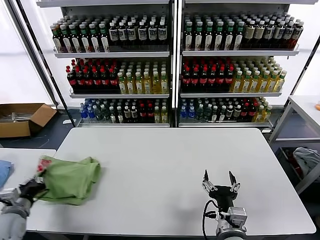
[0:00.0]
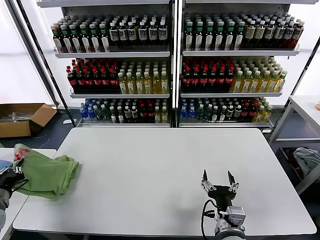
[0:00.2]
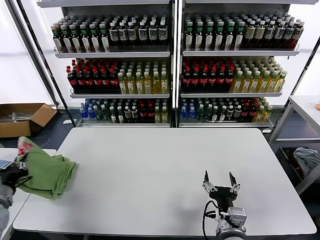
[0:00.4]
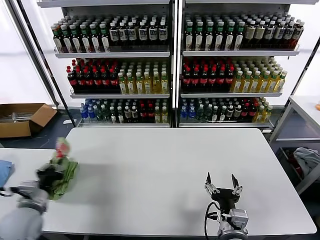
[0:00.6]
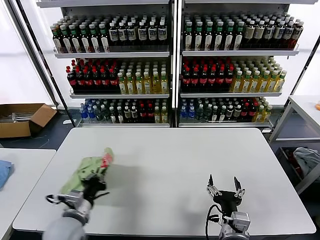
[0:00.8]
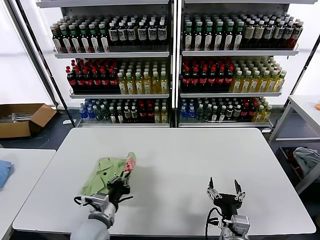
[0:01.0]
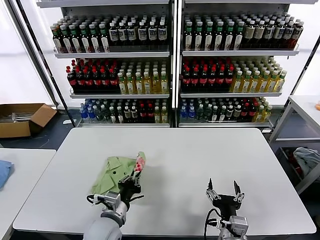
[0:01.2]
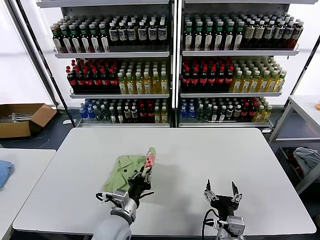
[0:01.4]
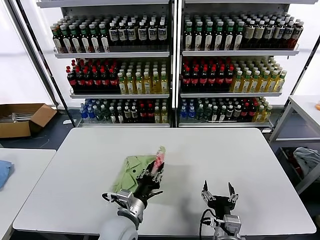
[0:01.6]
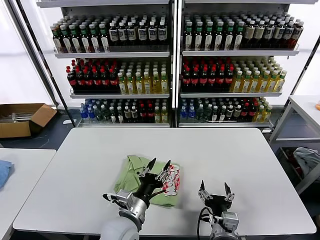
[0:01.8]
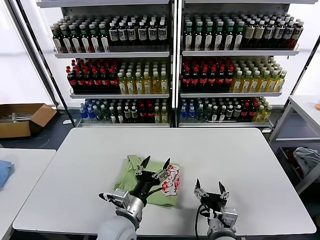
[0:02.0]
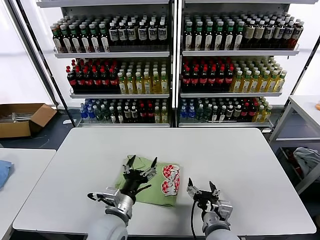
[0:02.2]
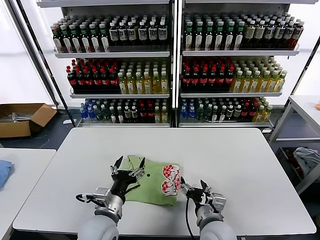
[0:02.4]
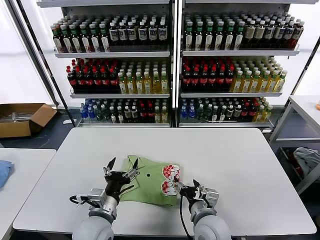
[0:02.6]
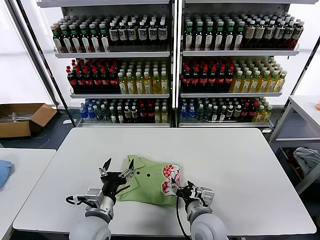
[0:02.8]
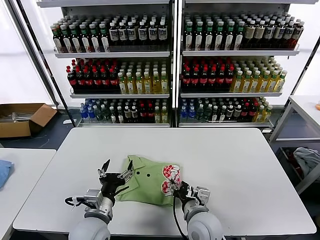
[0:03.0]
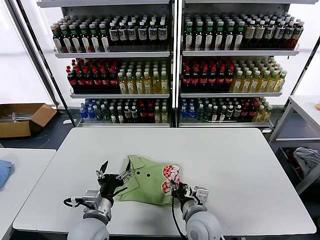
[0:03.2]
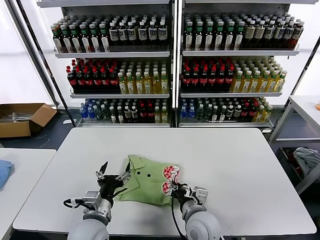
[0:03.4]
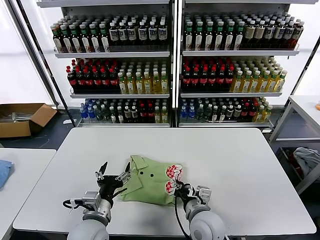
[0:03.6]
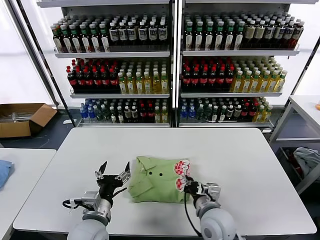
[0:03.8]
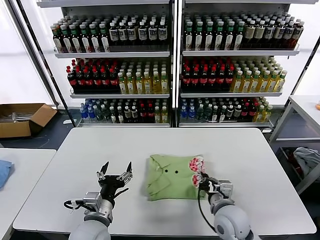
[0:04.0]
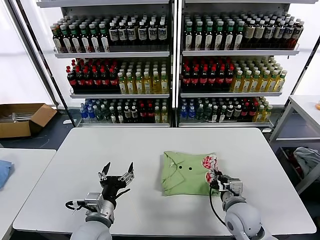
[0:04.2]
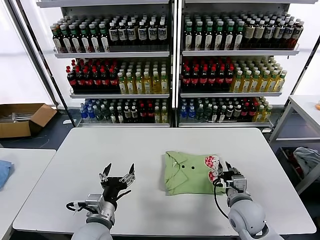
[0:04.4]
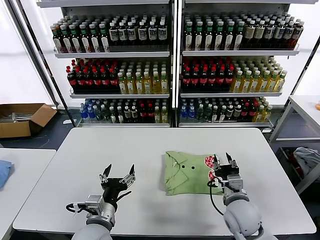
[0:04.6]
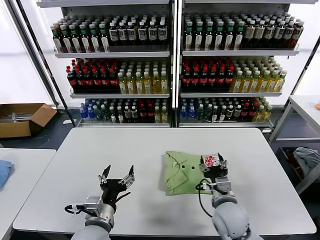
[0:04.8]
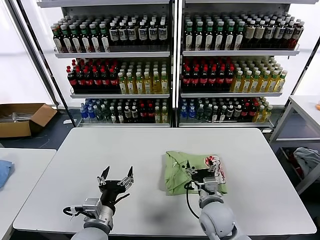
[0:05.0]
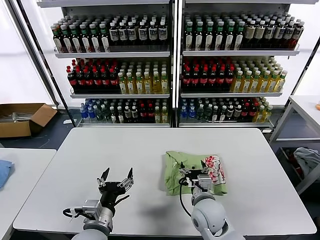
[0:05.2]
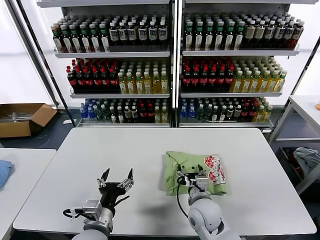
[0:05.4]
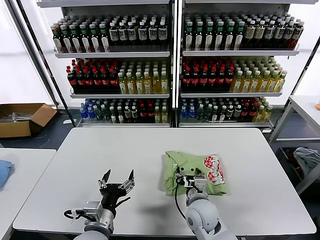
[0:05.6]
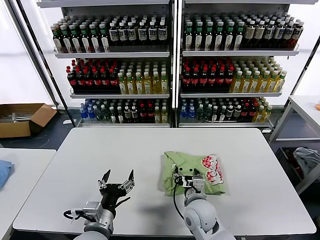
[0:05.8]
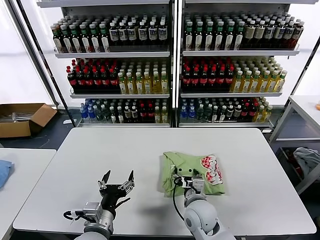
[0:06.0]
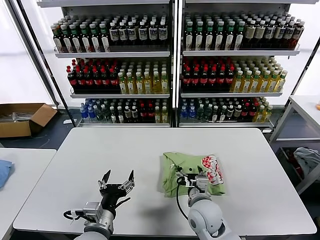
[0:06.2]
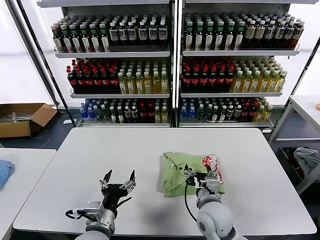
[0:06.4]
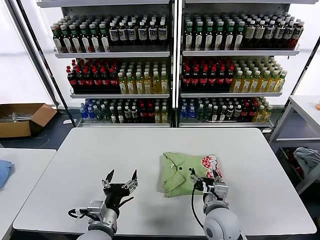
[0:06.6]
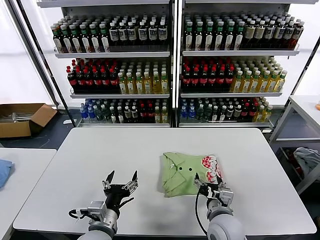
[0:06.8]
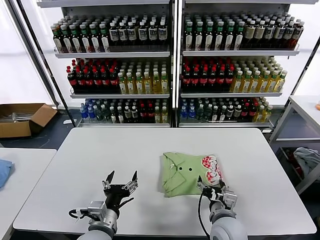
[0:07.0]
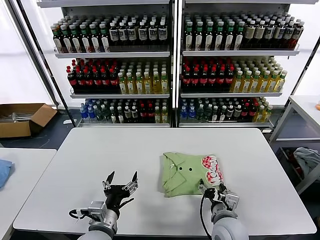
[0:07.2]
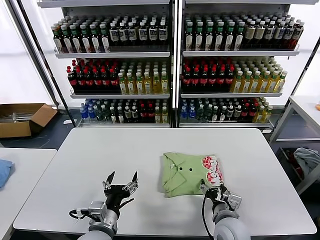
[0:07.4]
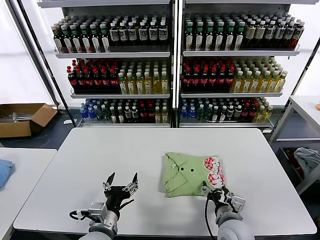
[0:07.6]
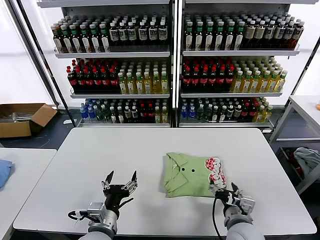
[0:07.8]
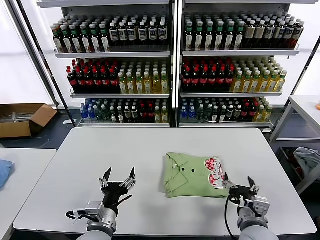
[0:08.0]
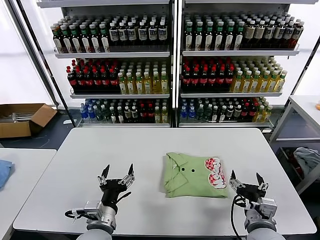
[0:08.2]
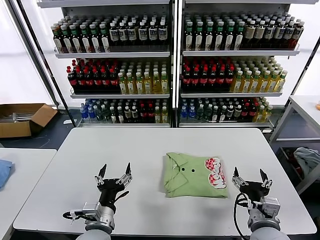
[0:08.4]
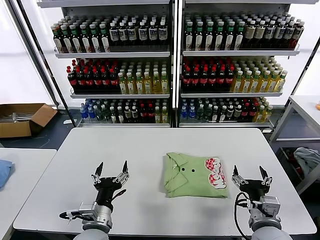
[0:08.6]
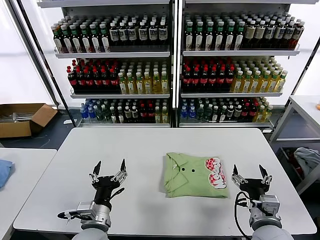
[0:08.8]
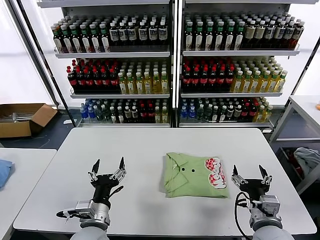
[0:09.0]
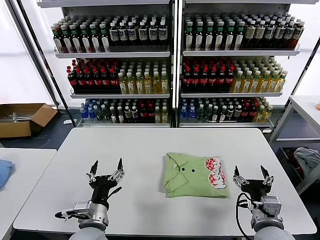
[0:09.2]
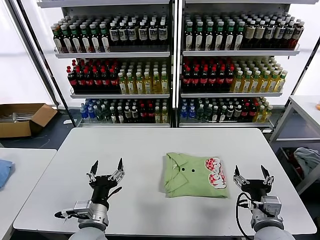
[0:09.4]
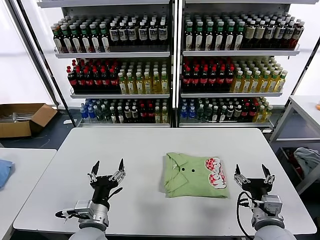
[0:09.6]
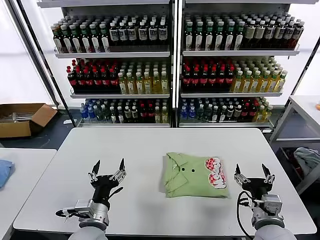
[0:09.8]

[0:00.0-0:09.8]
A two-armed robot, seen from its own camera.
Task of the whole recording: fold and organize the clothes.
Step, 0:02.0 to 0:07.8: Drag the clothes to the center of the table.
0:00.0 to 0:01.4: The left gripper goes some 30 cm to the right.
0:01.4 to 0:02.8: The left gripper shifts by approximately 5 cm, and opens. The right gripper goes about 10 cm forward and to the left.
0:02.8 to 0:04.2: The right gripper travels to the right by about 10 cm, and closes its fingers.
0:04.2 to 0:05.6: The right gripper goes about 10 cm to the left, and opens its fingers.
0:05.6 to 0:07.0: The right gripper heads backward and to the right, covering about 10 cm.
0:07.0 to 0:08.4: The right gripper heads to the right, covering some 10 cm.
0:08.4 to 0:09.8: The grippers make only small movements.
